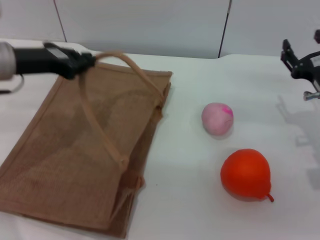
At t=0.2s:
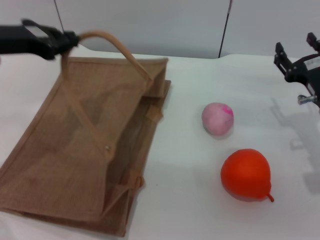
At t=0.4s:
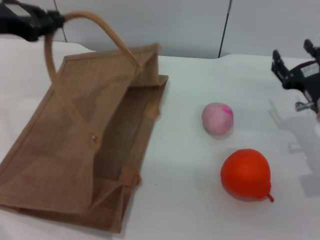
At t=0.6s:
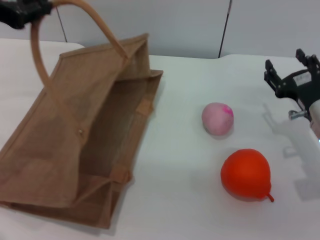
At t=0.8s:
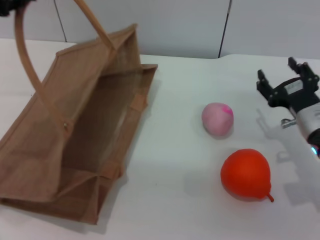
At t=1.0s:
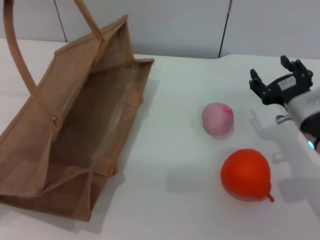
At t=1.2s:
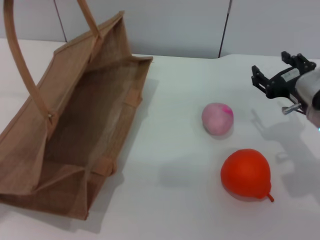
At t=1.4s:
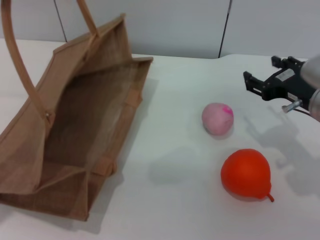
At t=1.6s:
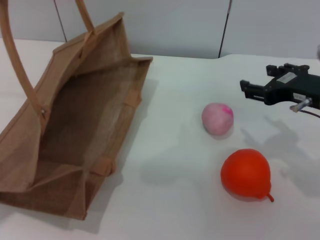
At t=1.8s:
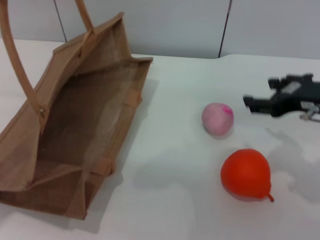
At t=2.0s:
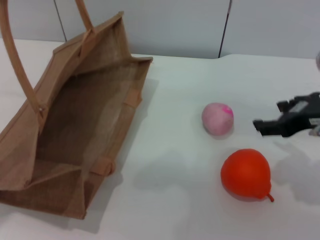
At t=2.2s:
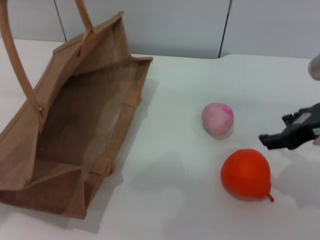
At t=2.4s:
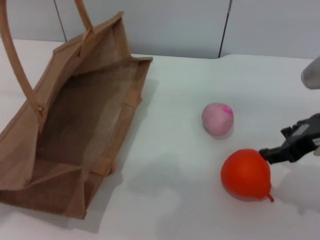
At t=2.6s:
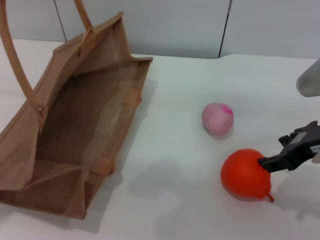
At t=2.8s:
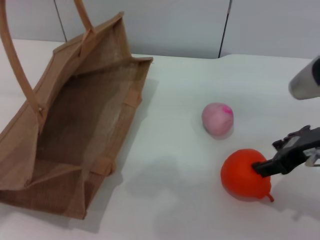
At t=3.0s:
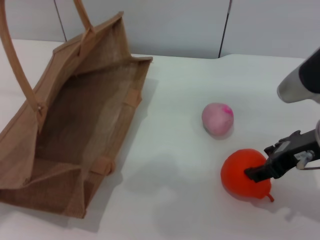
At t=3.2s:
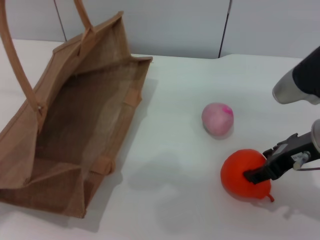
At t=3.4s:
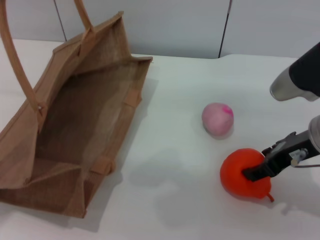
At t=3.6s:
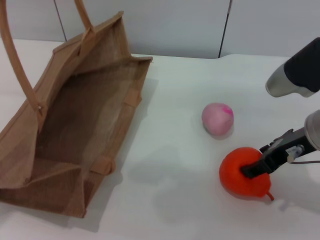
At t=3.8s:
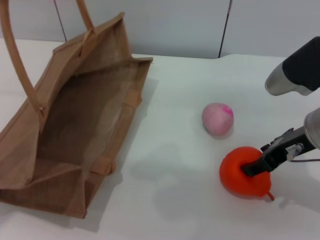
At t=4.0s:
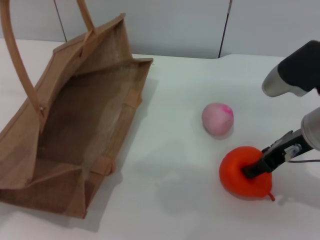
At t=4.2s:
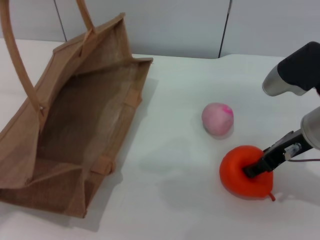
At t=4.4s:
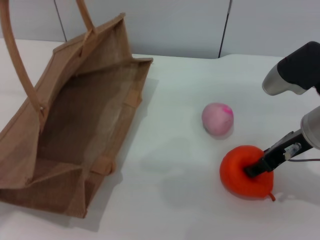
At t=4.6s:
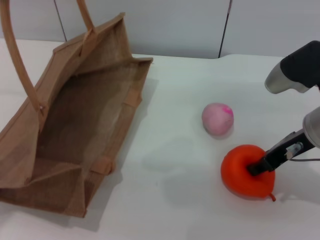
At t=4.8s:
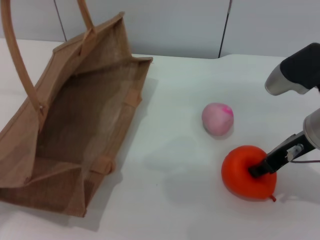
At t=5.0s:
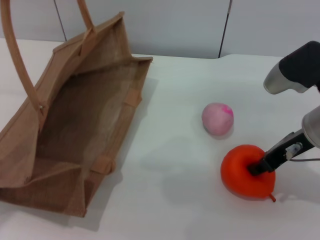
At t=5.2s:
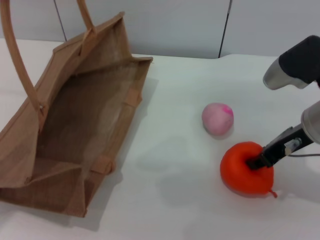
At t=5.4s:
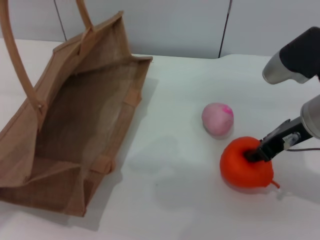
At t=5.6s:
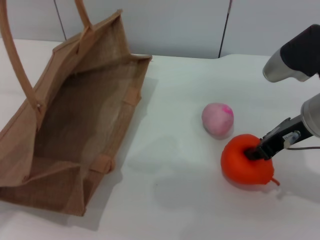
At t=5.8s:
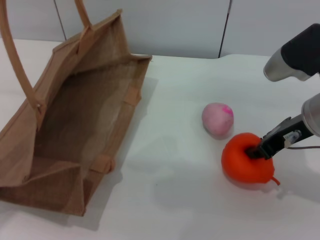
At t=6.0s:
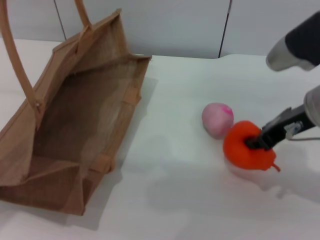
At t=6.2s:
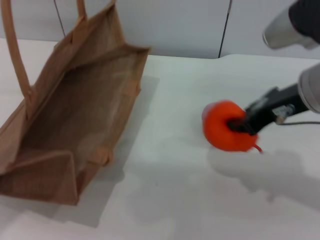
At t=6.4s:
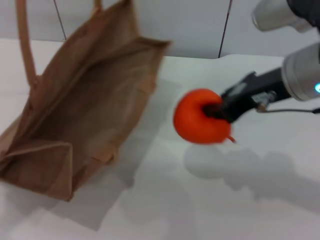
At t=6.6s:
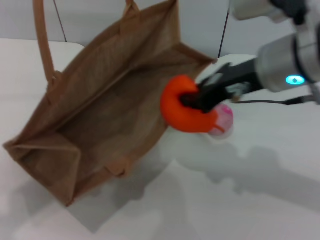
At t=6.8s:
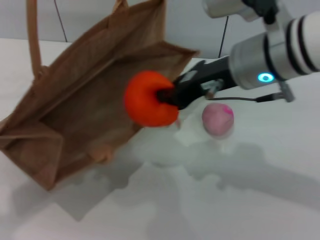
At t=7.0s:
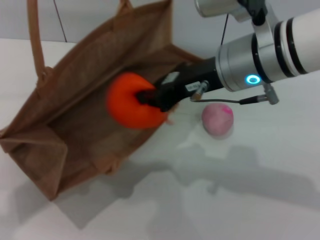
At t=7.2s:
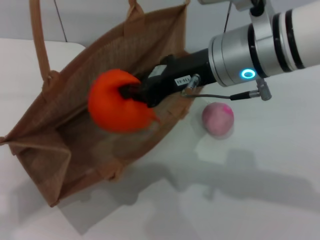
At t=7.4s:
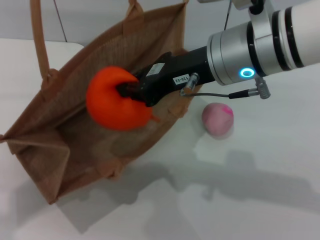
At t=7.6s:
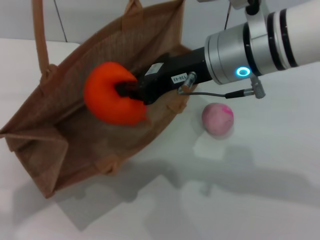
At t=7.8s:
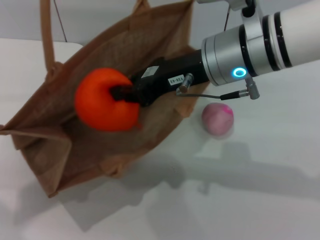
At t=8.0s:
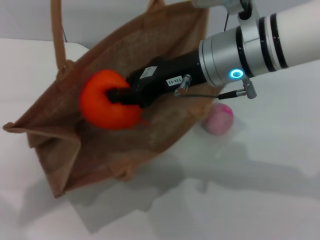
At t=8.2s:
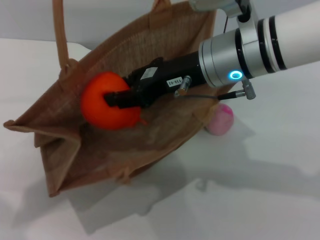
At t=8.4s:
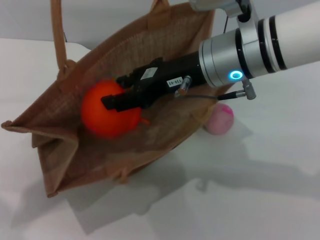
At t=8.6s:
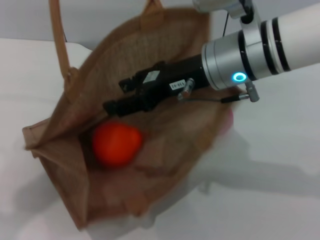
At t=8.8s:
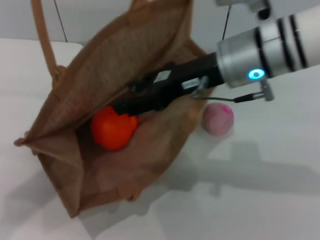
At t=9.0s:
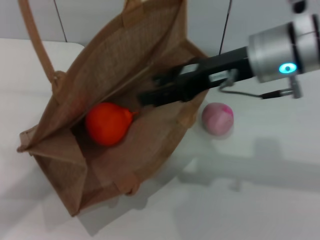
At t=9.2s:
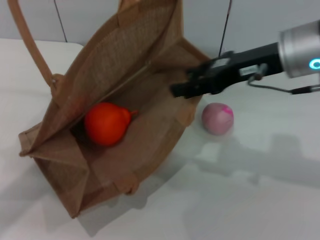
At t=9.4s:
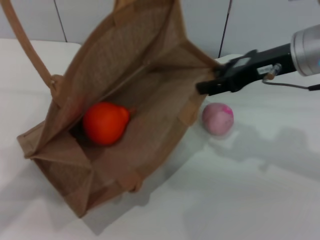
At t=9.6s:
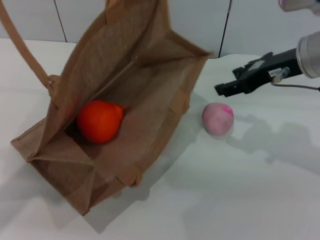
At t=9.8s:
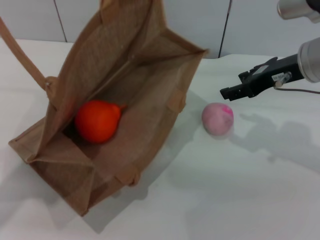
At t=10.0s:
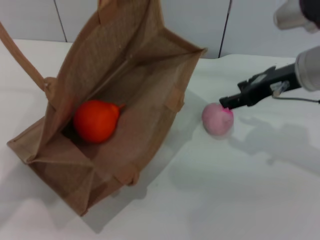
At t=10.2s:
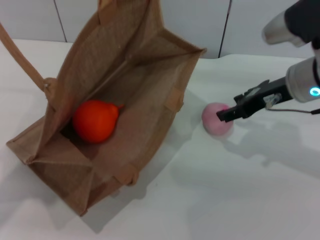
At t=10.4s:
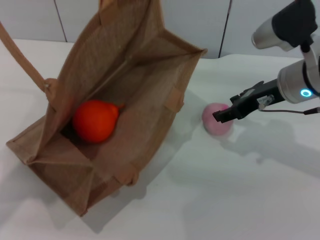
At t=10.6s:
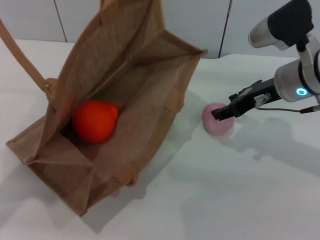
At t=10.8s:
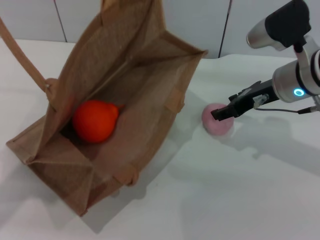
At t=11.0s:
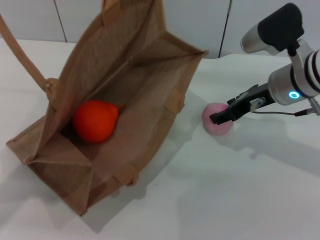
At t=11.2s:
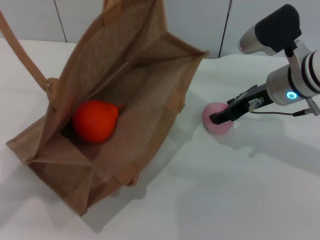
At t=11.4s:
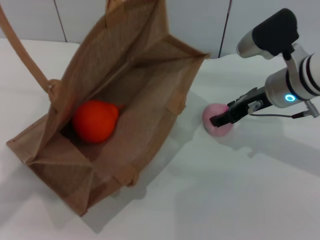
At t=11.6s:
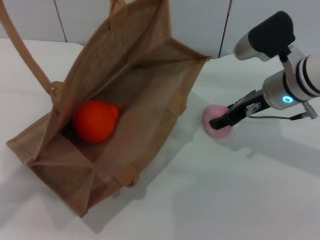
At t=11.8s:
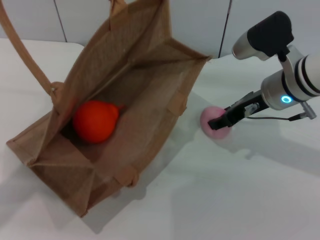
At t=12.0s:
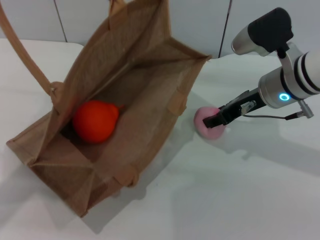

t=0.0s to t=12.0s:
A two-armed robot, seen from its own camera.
Task of the whole recording: pick up the orange and peach from the table and place it in the brown handbag.
Step, t=1.0s to t=6.0s: Pick up the orange with the right gripper.
Step, t=6.2s to t=8.6s: Place the orange into the woven bag with the right gripper.
t=0.0s to t=1.6s: The left gripper moves upward, about 15 cm; the right gripper shifts some 10 cm upward.
t=3.0s to t=4.4s: The grippers move only a little.
t=4.4s to t=6.0s: The right gripper closes.
t=6.0s to t=7.6s: The left gripper changes place by approximately 5 cm. Meanwhile the right gripper heads to the left, covering some 10 cm.
t=7.6s to t=9.0s: The right gripper moves to the right, roughly 5 cm, and opens.
t=9.0s to t=10.4s: The right gripper is displaced downward and to the right by about 10 cm.
t=10.4s to t=12.0s: The grippers move only a little.

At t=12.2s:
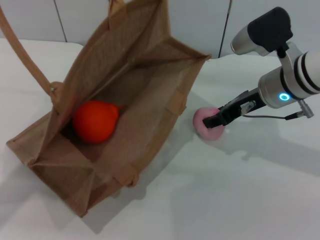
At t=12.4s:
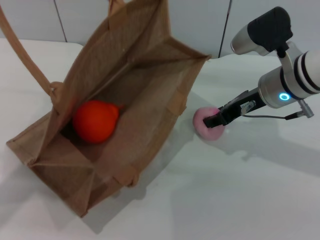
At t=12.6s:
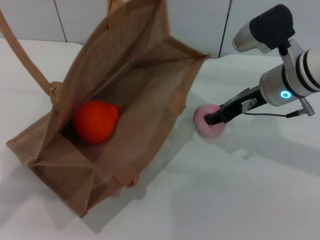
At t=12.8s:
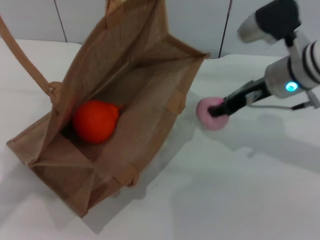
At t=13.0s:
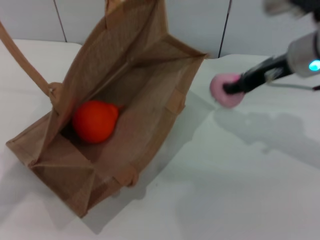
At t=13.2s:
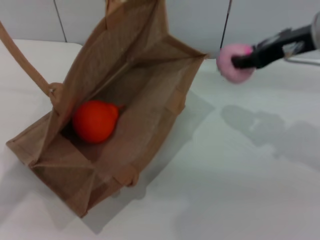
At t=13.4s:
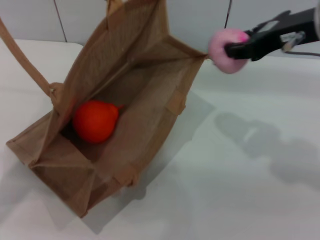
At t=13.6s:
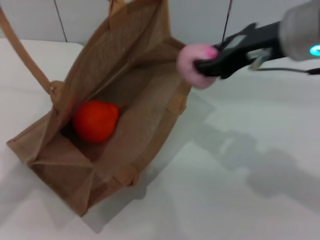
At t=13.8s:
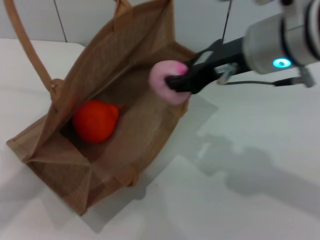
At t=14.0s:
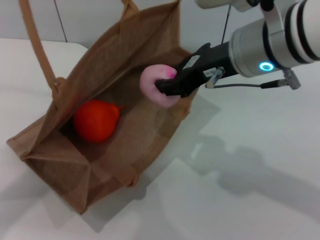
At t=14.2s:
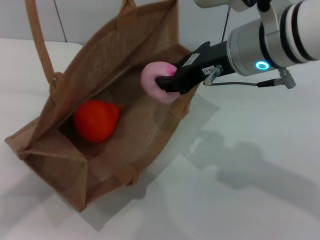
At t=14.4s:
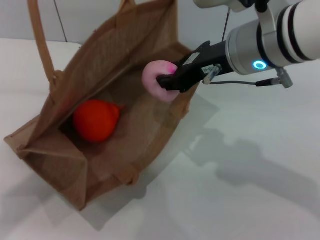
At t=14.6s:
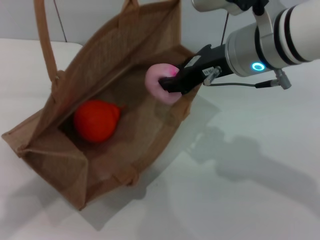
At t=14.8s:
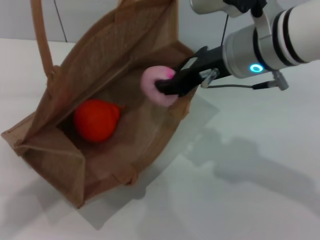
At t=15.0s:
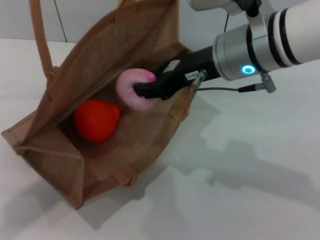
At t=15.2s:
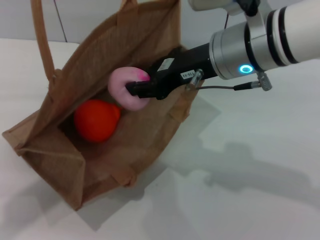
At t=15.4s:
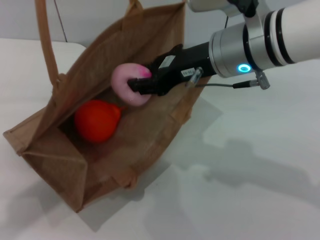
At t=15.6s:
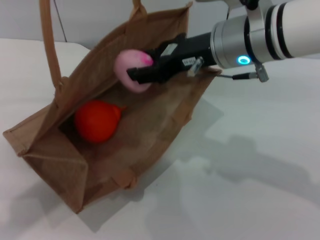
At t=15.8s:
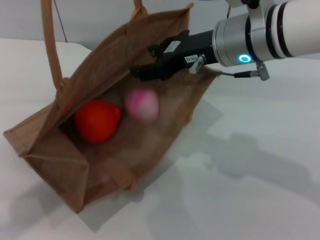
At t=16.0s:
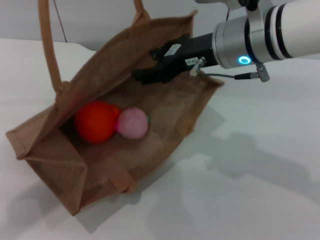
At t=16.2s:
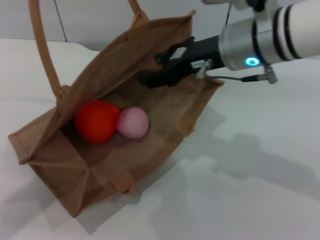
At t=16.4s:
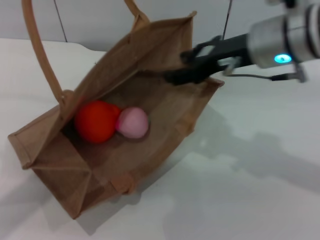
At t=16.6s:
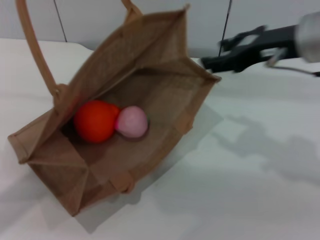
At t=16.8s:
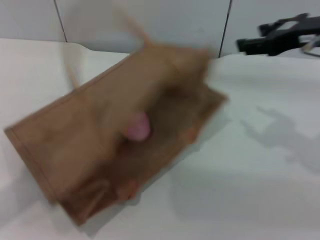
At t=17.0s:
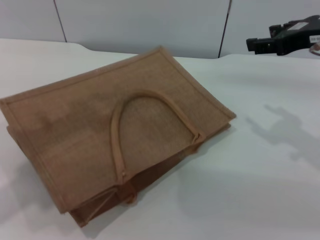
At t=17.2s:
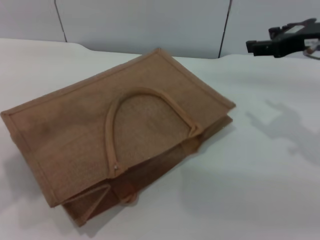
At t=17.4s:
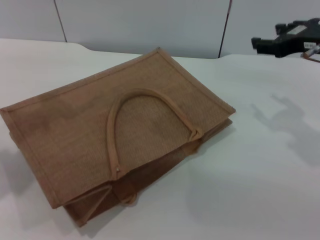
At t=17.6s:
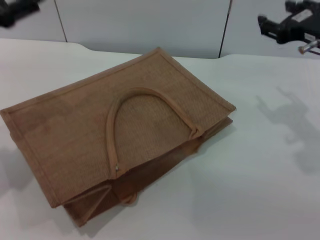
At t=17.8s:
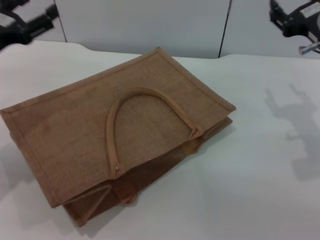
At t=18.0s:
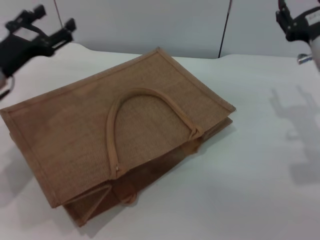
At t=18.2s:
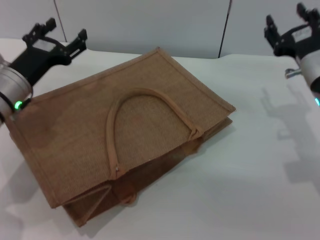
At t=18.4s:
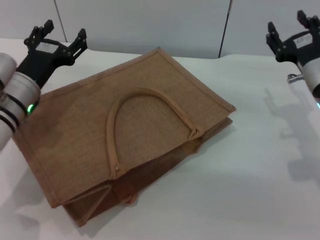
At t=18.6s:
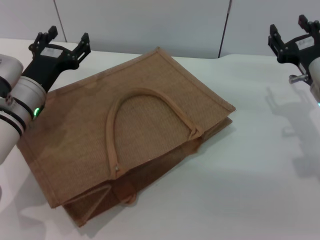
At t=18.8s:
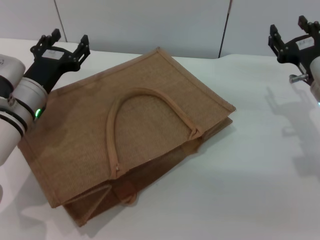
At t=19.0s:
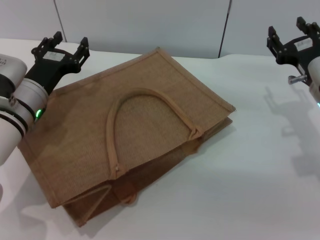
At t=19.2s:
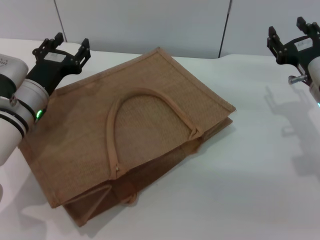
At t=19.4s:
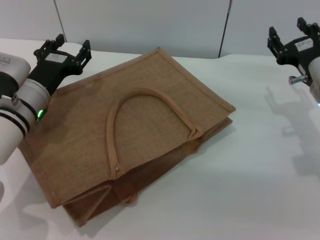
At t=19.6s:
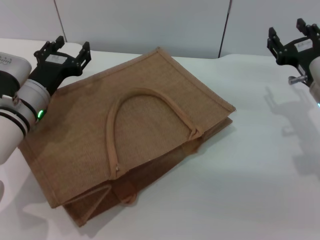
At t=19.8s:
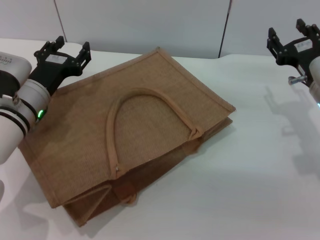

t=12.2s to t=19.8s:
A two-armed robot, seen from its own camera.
Task of the whole recording: pick up the orange and peach from the table and place it in the brown handbag.
Step, t=13.2s to t=16.0s: Place the peach into the woven bag with the right gripper.
Step, t=16.2s to t=17.4s: Lower the woven bag with the left gripper to close it.
t=12.2s to t=13.8s: The right gripper heads upward, backward and to the left, covering some 15 cm.
t=15.2s to t=16.8s: The right gripper heads to the right, covering about 15 cm, and opens its fingers.
t=16.8s to t=18.2s: The left gripper moves downward, approximately 25 cm, and opens. The right gripper is displaced downward by some 15 cm.
t=18.2s to t=19.8s: The grippers move only a little.
